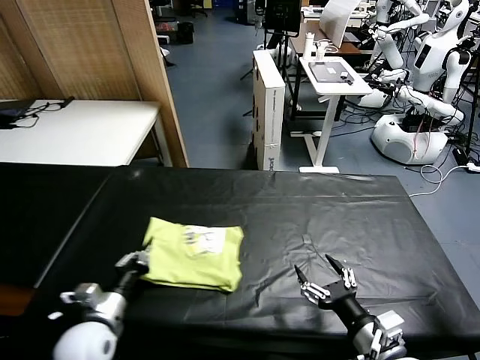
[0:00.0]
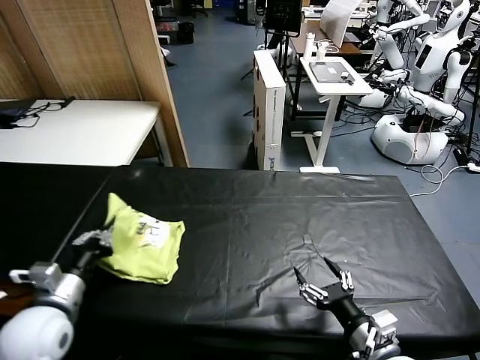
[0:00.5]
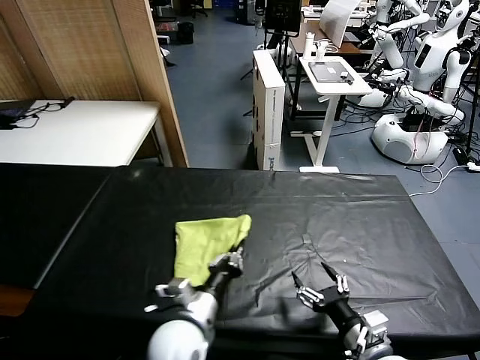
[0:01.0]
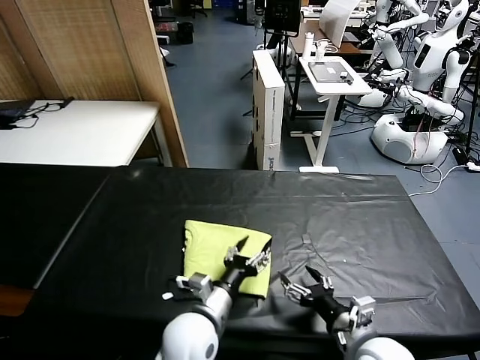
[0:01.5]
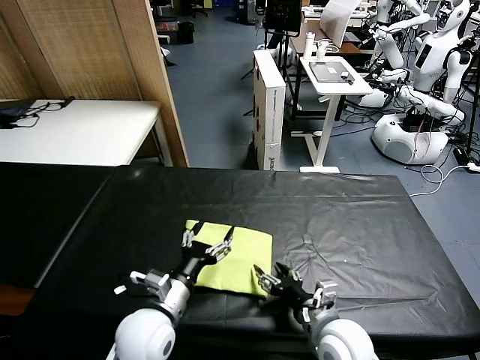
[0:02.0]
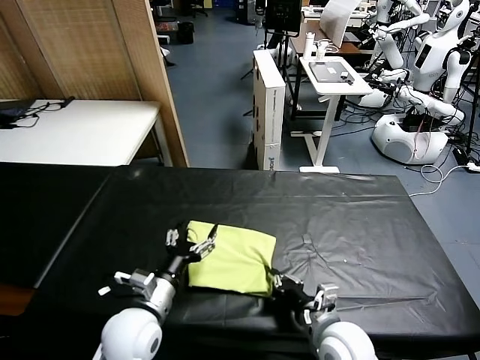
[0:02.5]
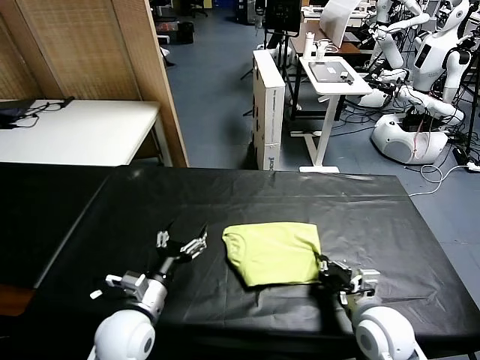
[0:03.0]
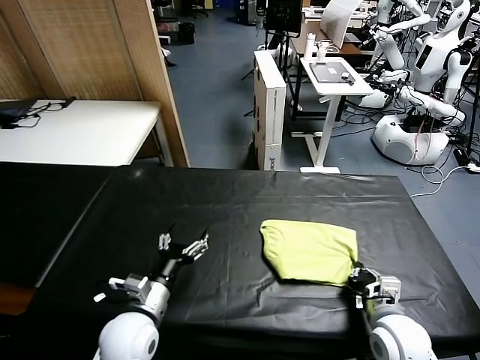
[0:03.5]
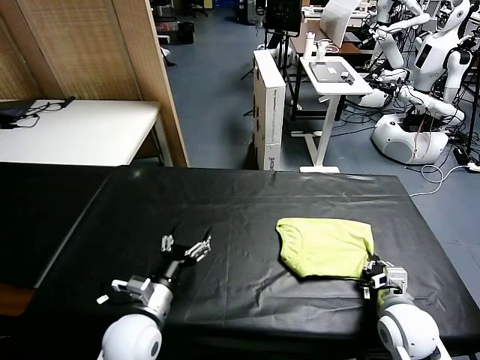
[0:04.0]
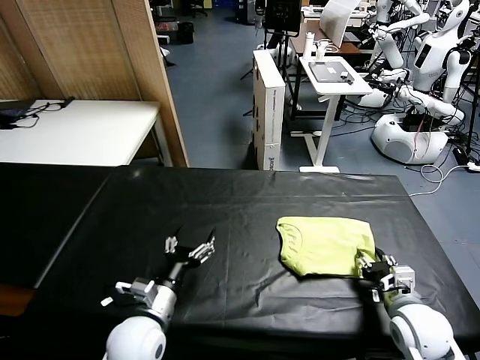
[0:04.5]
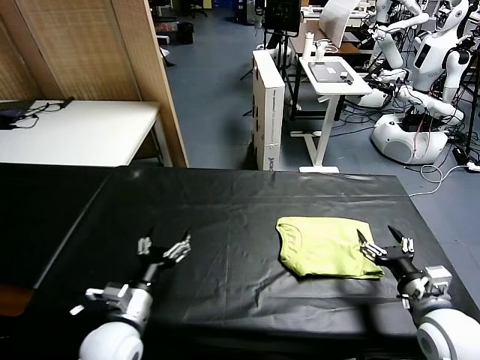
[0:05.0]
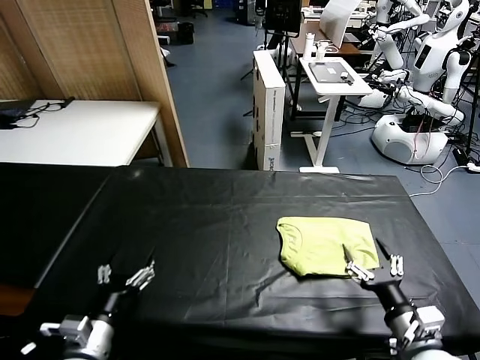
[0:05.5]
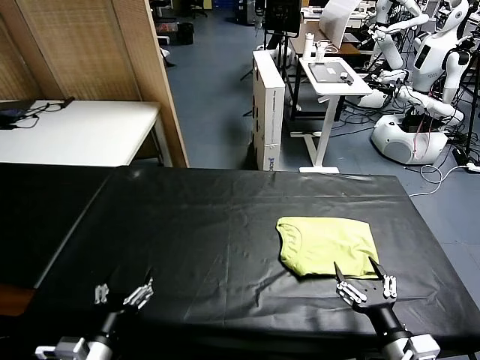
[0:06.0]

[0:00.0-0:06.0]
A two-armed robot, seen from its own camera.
Task of the whole recording: fold and organize the clothes.
Step, 1.5 to 4.5 s: Drag the clothes to the center of the table.
0.0 to 2.0 s: The left gripper moves left and right over about 25 cm, changing direction 2 times, and opens its fingers, while the right gripper moves forward and to the left, approximately 10 cm.
2.0 to 4.0 s: The right gripper shifts approximately 10 cm to the right, and closes up.
4.0 to 6.0 s: The left gripper heads backward and to the left, covering some 15 cm. The right gripper travels backward by about 15 cm, and opens its fingers.

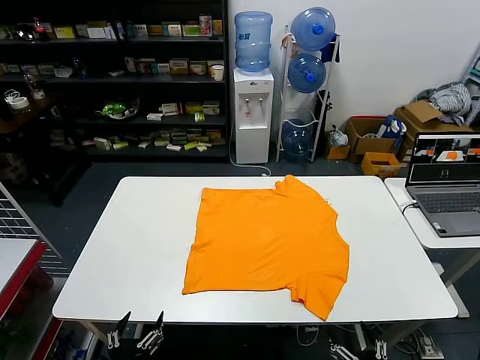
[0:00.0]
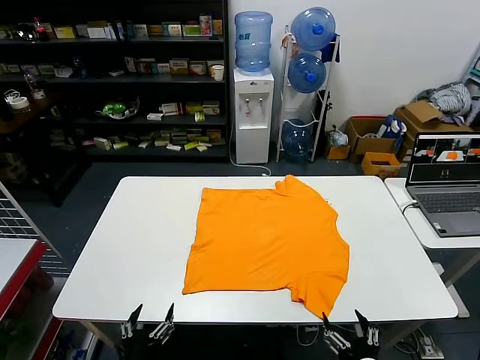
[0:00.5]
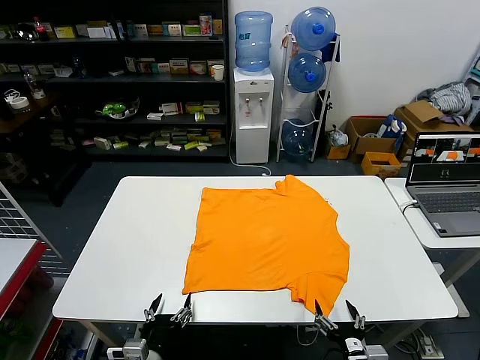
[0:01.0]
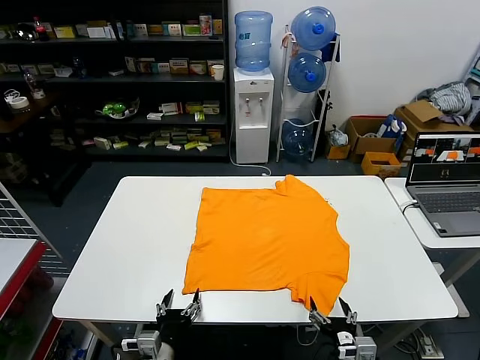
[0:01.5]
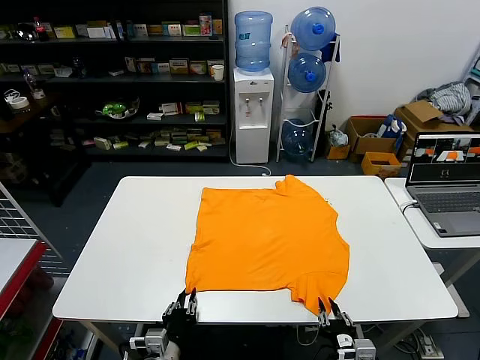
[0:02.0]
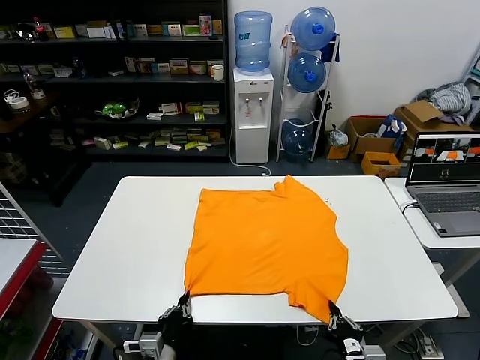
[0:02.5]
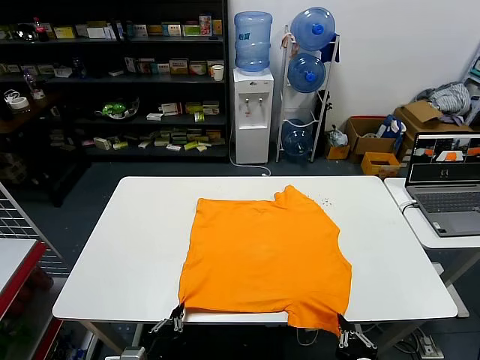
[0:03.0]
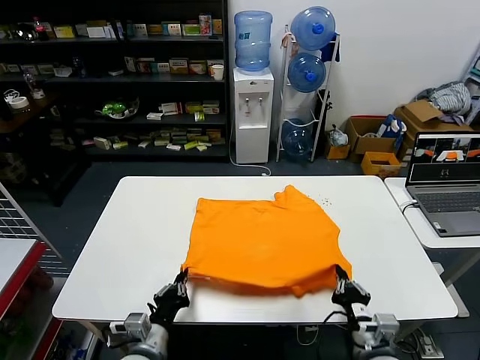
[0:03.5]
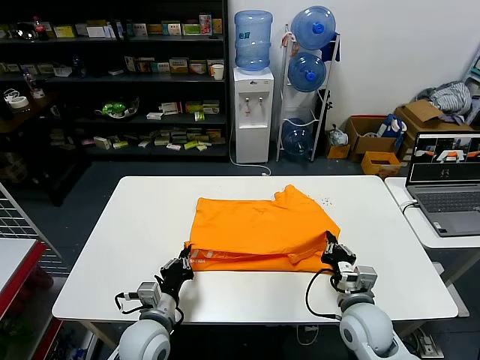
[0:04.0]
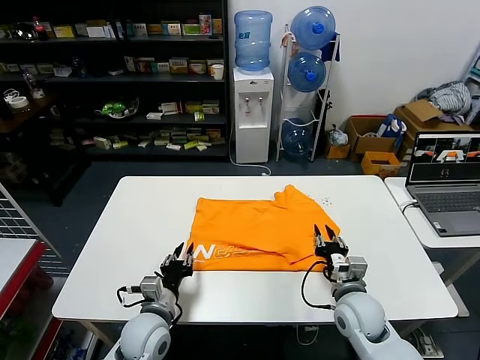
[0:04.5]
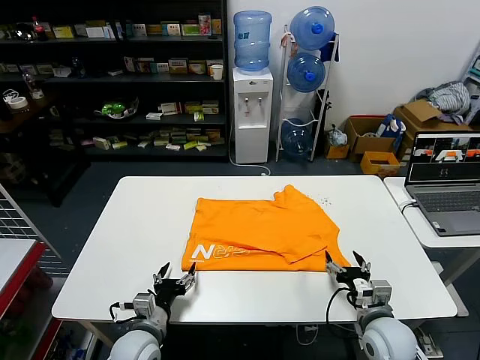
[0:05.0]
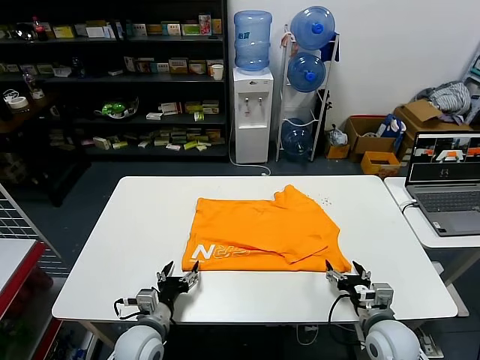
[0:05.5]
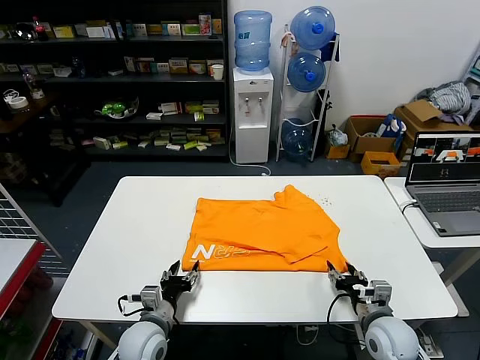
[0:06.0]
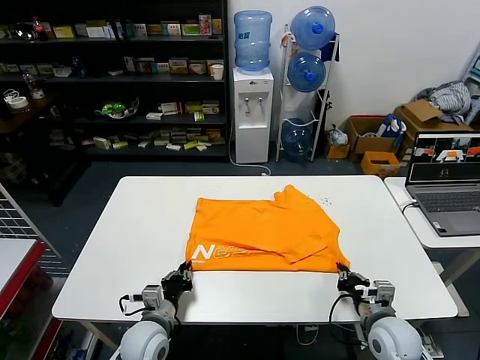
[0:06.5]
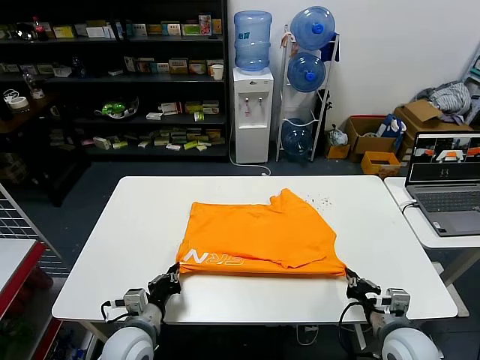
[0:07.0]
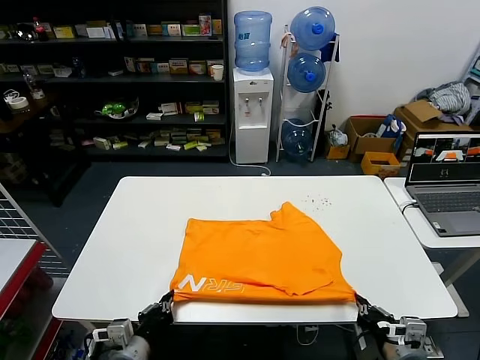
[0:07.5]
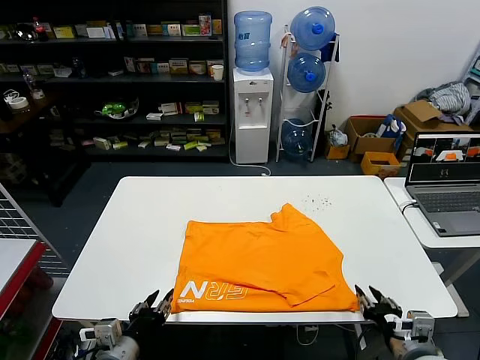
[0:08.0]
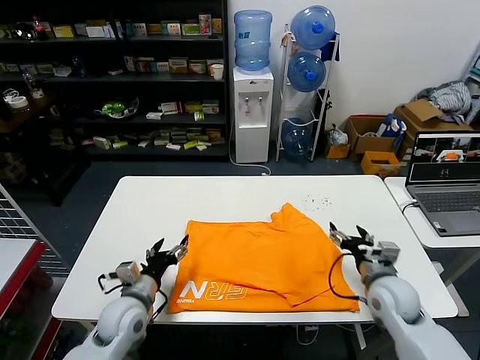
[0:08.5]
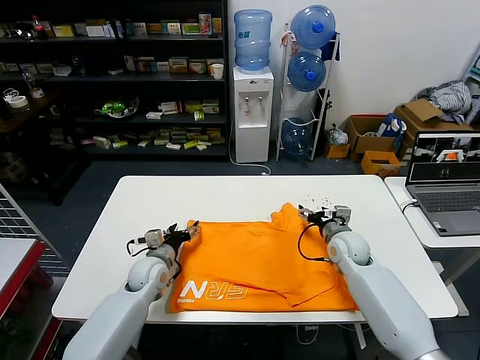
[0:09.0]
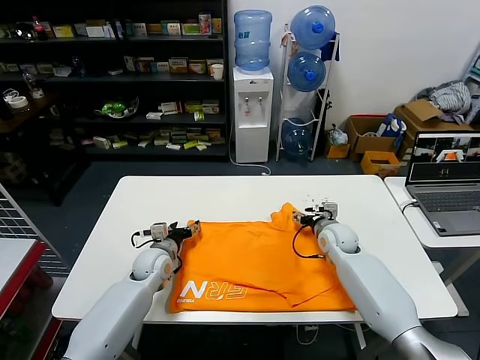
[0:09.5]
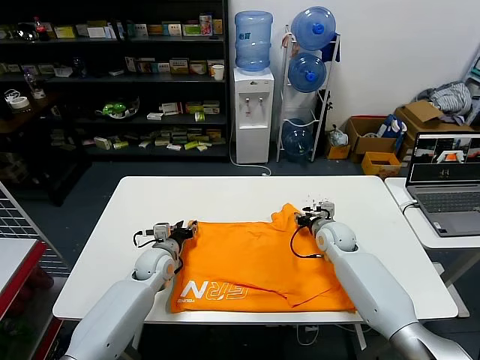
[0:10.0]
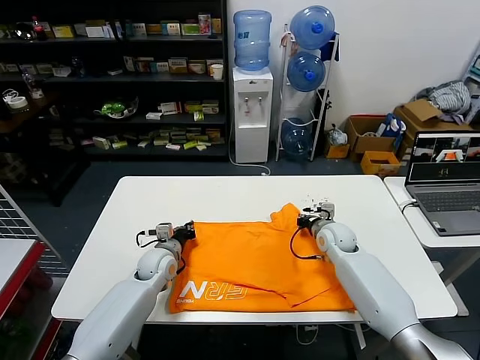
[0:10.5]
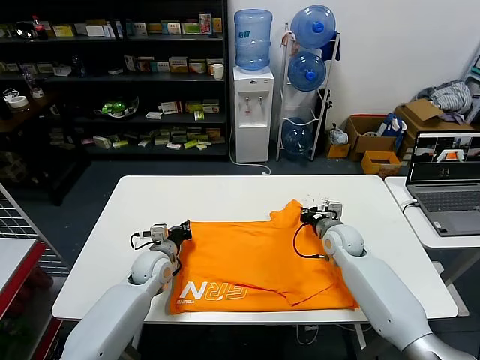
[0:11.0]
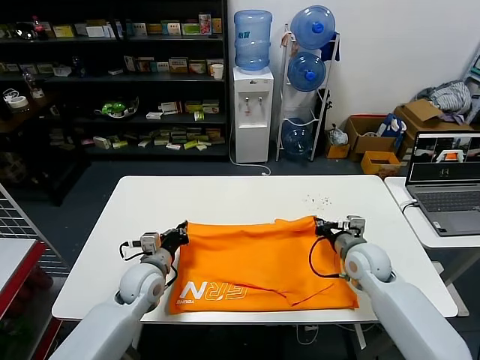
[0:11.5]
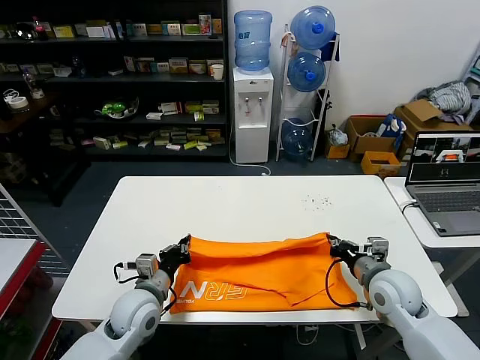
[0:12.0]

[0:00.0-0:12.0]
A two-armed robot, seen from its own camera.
Task of the whole recording: fold and organize the clothes.
Step, 0.0 to 2.0 s: use both grippers simultaneously to clamp the lower edge of the clothing fabric.
Step, 2.5 to 4.0 s: use both grippers to drag the lower edge of the fabric forward and fold it over the upper edge.
Step, 4.5 to 7.5 s: Drag the clothes downward with both gripper.
Step, 8.0 to 10.0 s: use both grippers simultaneously to clamp the upper edge of the clothing fabric.
2.0 to 4.0 s: The left gripper shifts roughly 10 cm forward and upward. Meanwhile the right gripper goes some 15 cm forward.
4.0 to 6.0 s: The left gripper opens. The right gripper is displaced to the right by about 5 cm, and opens up.
6.0 to 8.0 s: The grippers both shift backward and upward by about 10 cm. The right gripper closes, then opens again. The left gripper closes, then opens again.
8.0 to 10.0 s: The grippers both shift forward by approximately 30 cm. The right gripper opens, then closes once more, while the left gripper opens, then closes once more.
10.0 to 12.0 s: The right gripper is displaced backward by approximately 20 cm, and closes its fingers, while the left gripper heads backward and upward, covering about 15 cm, and closes.

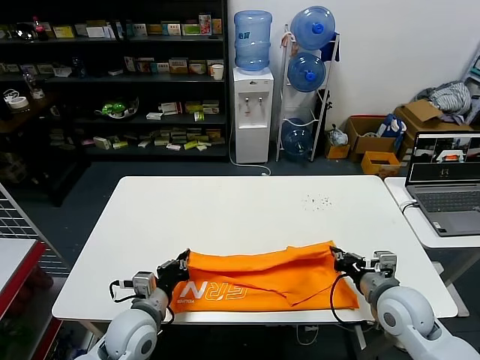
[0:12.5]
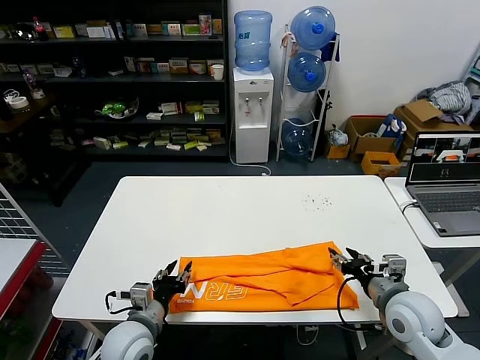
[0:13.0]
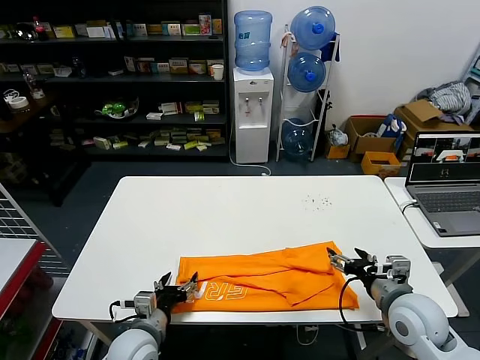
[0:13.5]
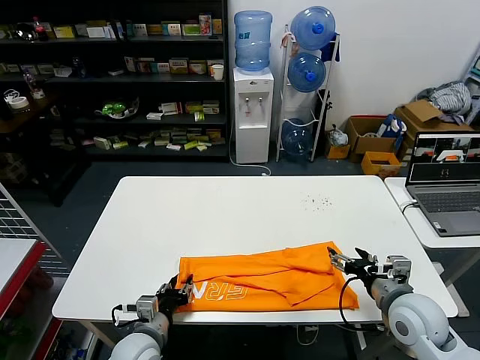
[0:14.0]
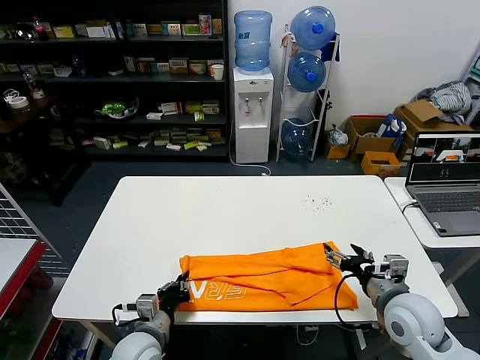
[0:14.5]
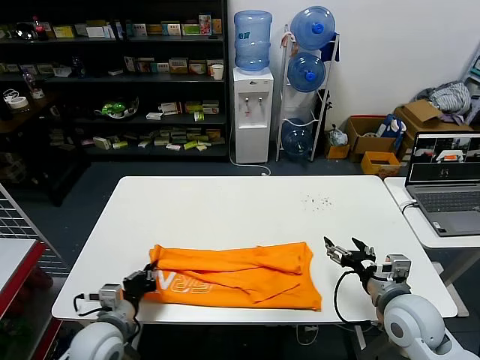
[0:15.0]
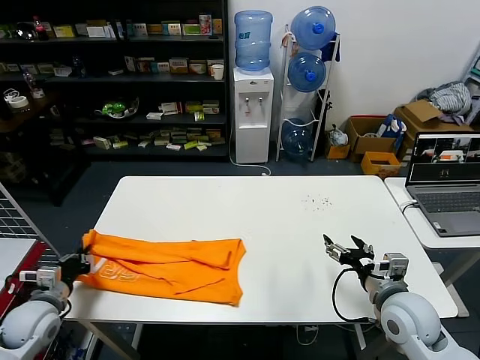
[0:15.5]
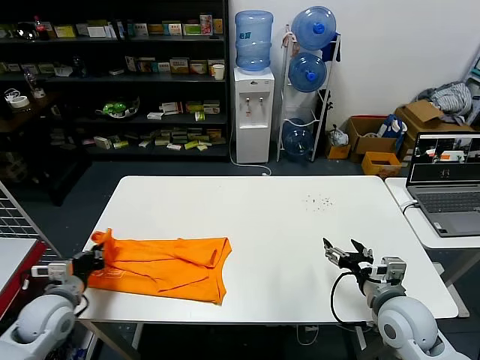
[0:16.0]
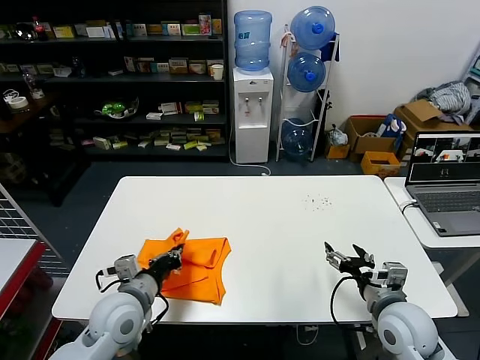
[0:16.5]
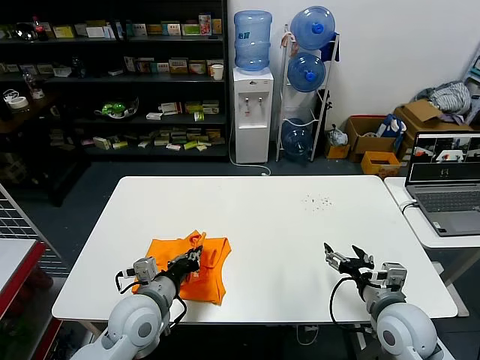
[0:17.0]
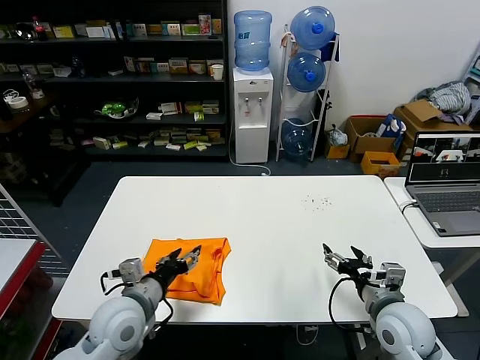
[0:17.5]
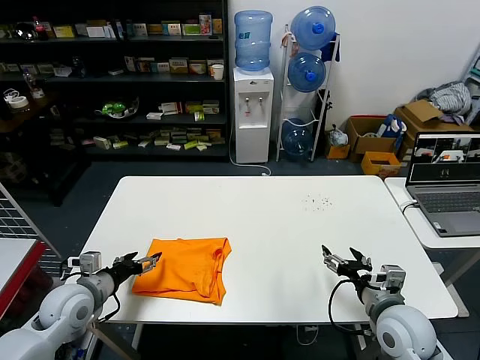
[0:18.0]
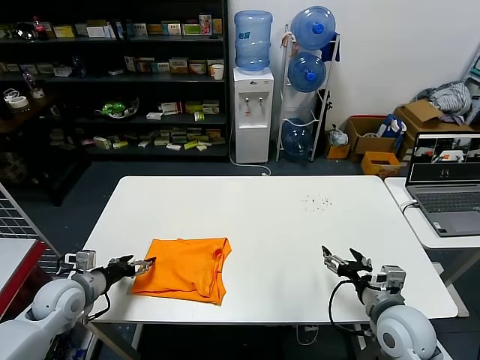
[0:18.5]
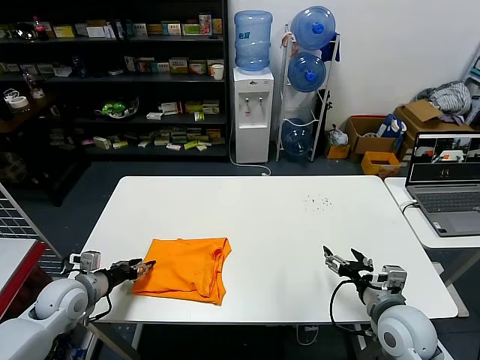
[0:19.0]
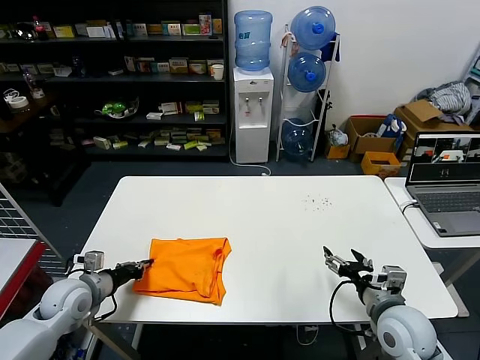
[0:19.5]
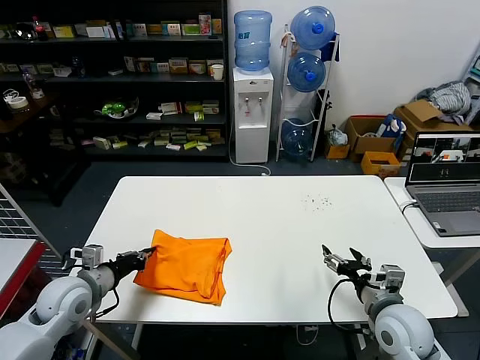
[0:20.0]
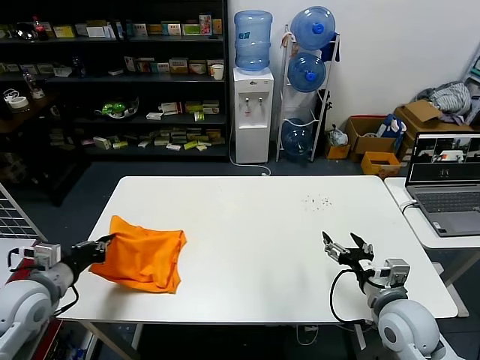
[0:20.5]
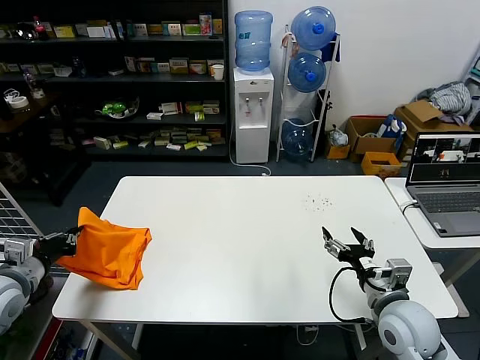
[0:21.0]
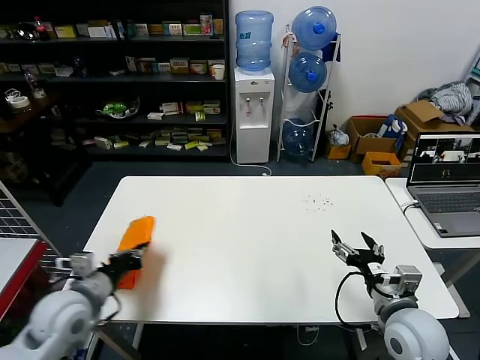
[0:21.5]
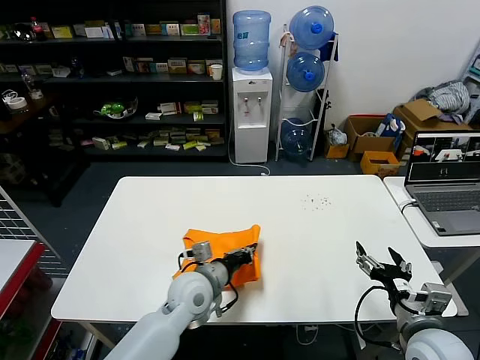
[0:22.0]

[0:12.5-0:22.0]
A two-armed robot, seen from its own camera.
Task of the whole recording: fold and organize the clothes.
Step, 13.0 to 14.0 s: use the left gripper to clamp the left edge of the fabric.
Step, 14.5 to 17.0 s: use the left gripper to drag the left edge of the fabric to the left and folds it over the right edge.
12.5 to 14.5 s: The right gripper opens up. The left gripper moves roughly 5 cm, and opens and closes again.
14.5 to 16.5 s: The left gripper shifts roughly 10 cm upward, and goes to the left and returns, roughly 20 cm each way.
16.5 to 18.0 s: The left gripper goes some 10 cm to the left, and opens its fingers.
18.0 to 20.0 s: The left gripper closes.
20.0 to 22.0 s: The left gripper shifts roughly 25 cm to the right. Meanwhile the right gripper shifts about 5 cm backward.
